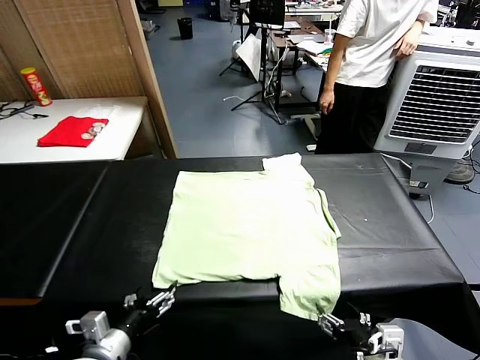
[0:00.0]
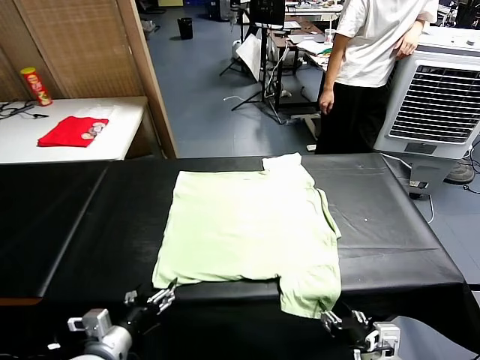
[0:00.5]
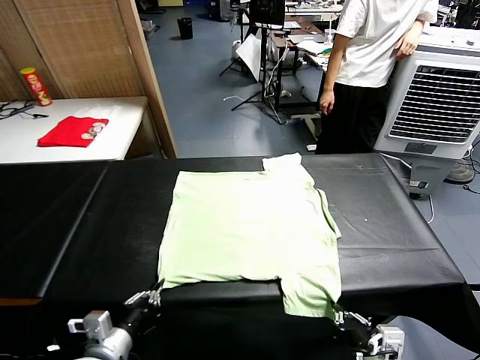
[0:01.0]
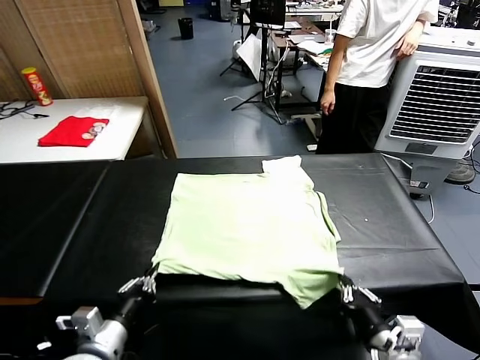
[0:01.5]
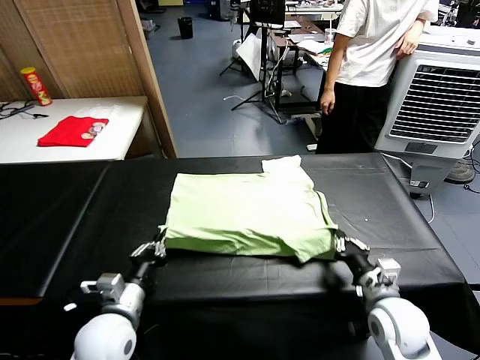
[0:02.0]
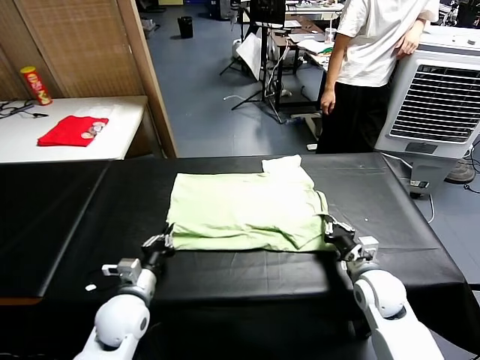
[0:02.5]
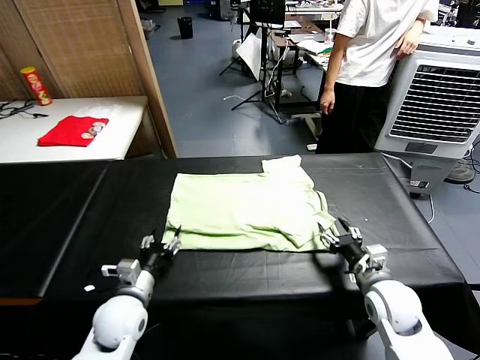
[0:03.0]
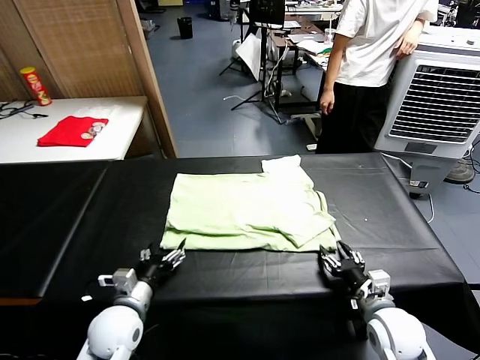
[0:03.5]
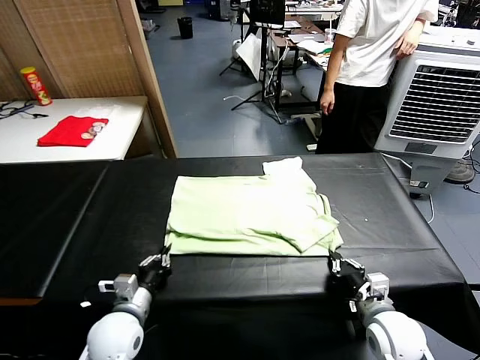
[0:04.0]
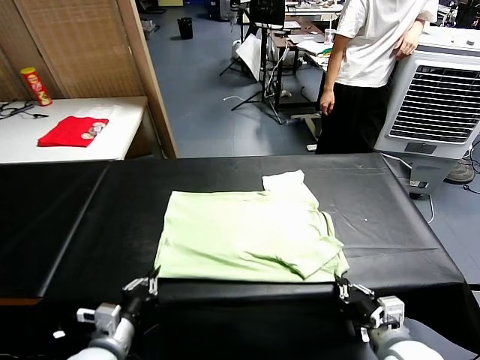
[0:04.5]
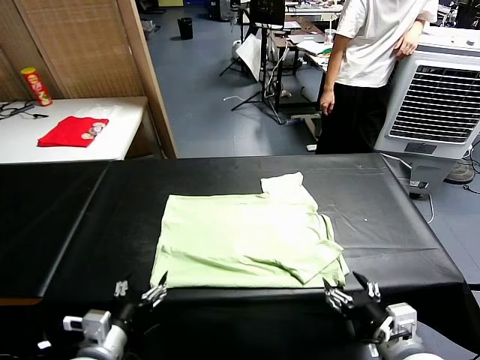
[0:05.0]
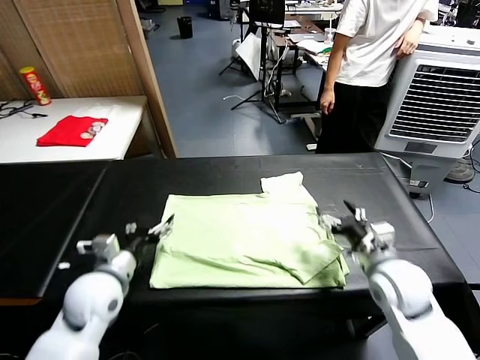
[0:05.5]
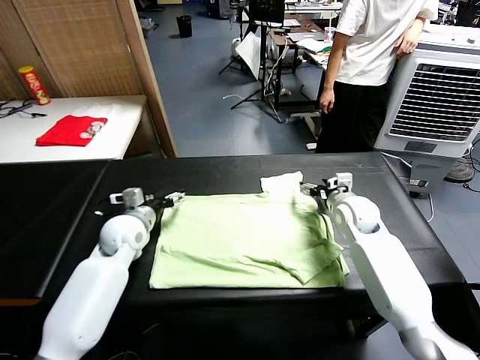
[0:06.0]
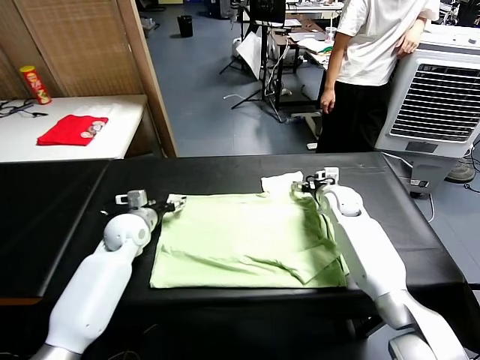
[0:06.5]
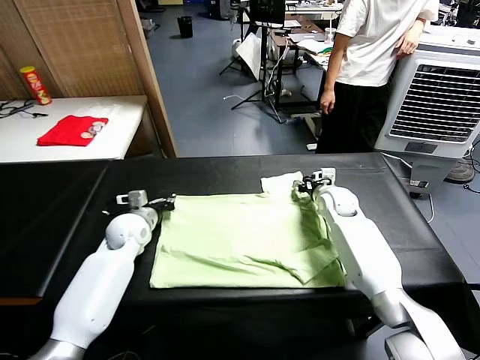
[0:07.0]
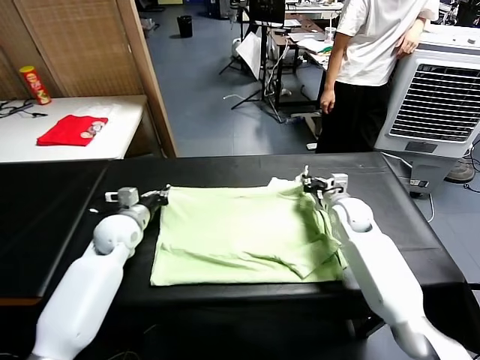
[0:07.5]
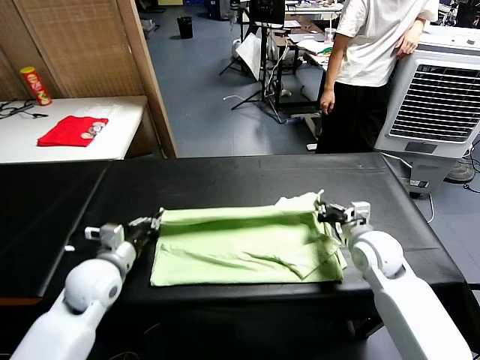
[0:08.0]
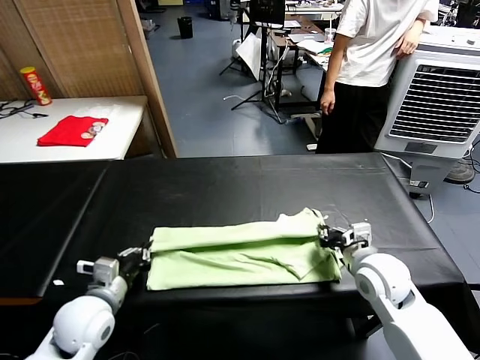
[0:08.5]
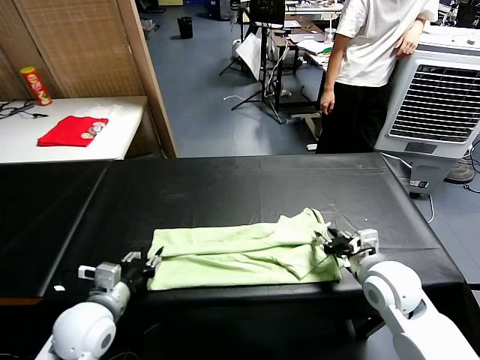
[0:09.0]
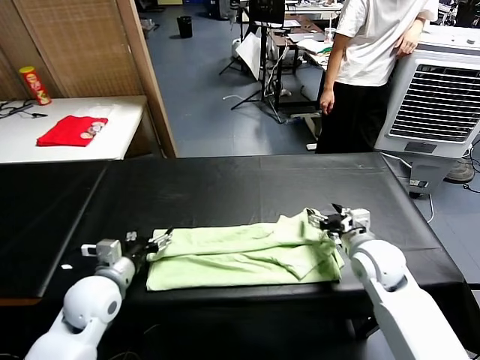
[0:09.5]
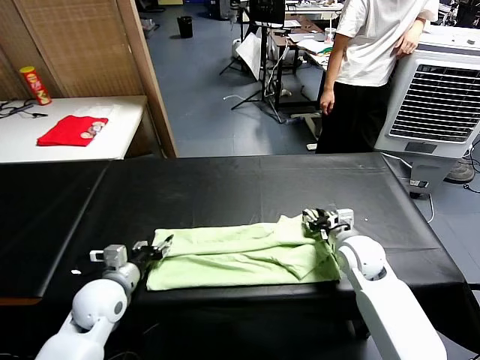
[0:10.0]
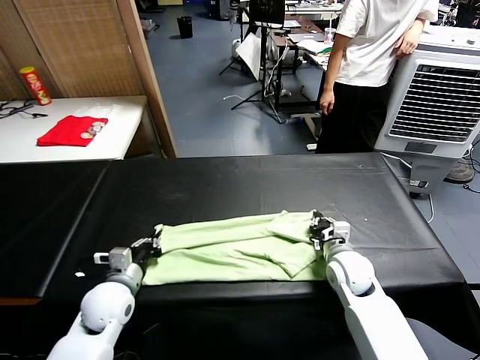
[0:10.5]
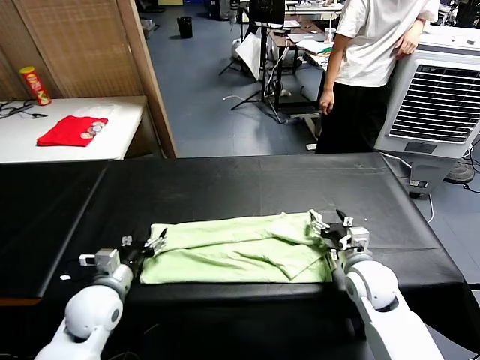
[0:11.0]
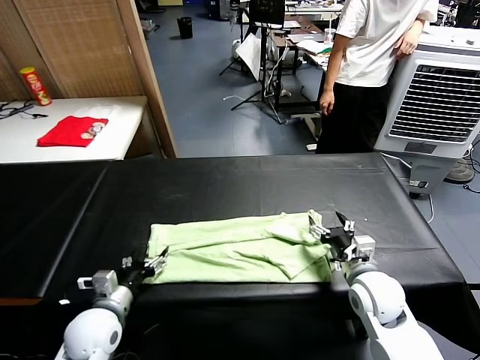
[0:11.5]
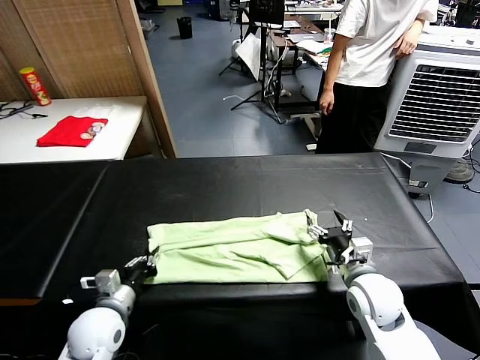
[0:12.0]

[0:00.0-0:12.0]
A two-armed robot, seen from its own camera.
Task of the whole recording: fold and organize the clothes.
Step, 0:00.0 to 0:00.5: use both grippers simultaneously to clamp the lower edge of the clothing fabric.
Step, 0:01.0 to 0:02.5: use both grippers to drag the lower edge of the fabric forward and fold it over the upper edge.
Step, 0:03.0 to 0:04.5: Drag the clothes downward with both gripper.
Step, 0:05.5 to 0:07.0: use both grippers simultaneously to clamp the upper edge of the clothing fabric.
Step, 0:07.5 to 0:09.0: use both grippers to drag the upper edge of the fabric backward and fold it over the lower edge.
Step, 0:09.5 to 0:11.5: use the left gripper to clamp the left edge of the fabric.
0:02.0 to 0:04.0: The right gripper moves backward, about 10 cm, and opens, then closes once more. The left gripper opens, then closes once more.
0:04.0 to 0:06.0: The grippers both shift forward by roughly 25 cm. The left gripper opens up; the right gripper opens its fingers.
0:06.0 to 0:08.0: Both grippers travel together backward, approximately 15 cm. The right gripper closes; the left gripper closes up.
0:08.0 to 0:10.0: The left gripper opens up. The right gripper changes place by roughly 5 cm, and opens and closes again.
0:10.0 to 0:12.0: The left gripper moves roughly 5 cm, and closes. Meanwhile the right gripper goes roughly 10 cm backward, and opens up.

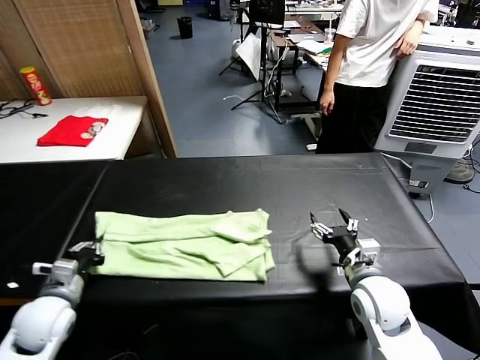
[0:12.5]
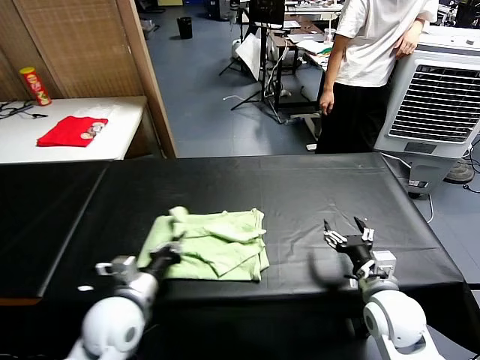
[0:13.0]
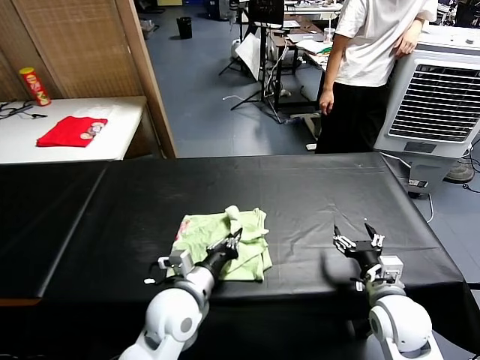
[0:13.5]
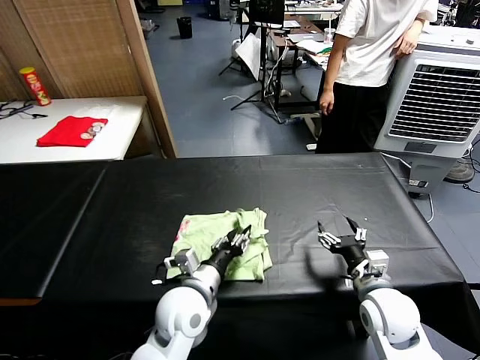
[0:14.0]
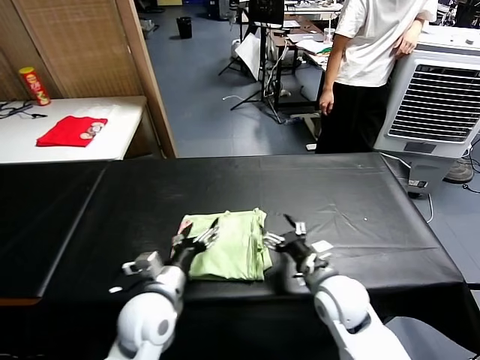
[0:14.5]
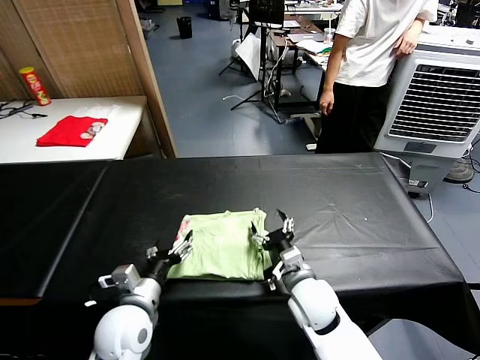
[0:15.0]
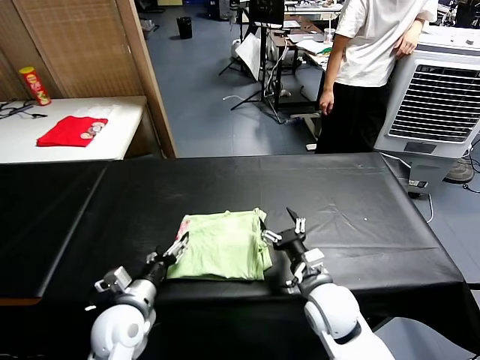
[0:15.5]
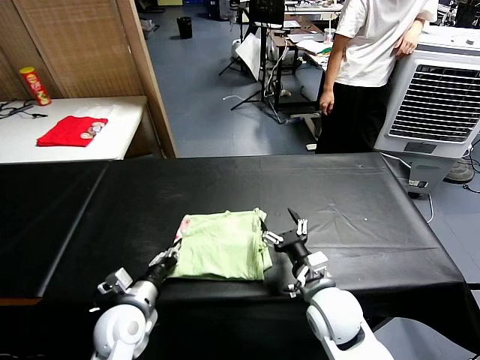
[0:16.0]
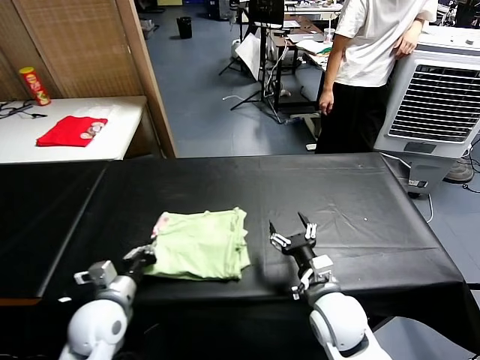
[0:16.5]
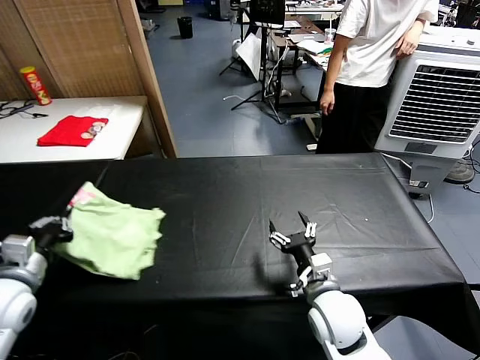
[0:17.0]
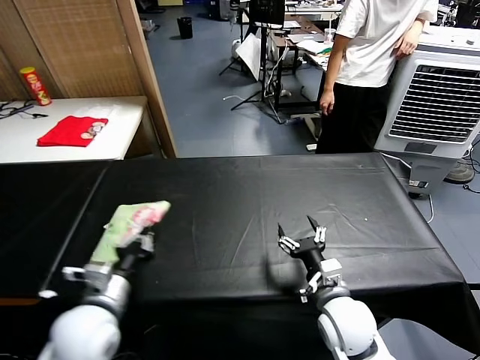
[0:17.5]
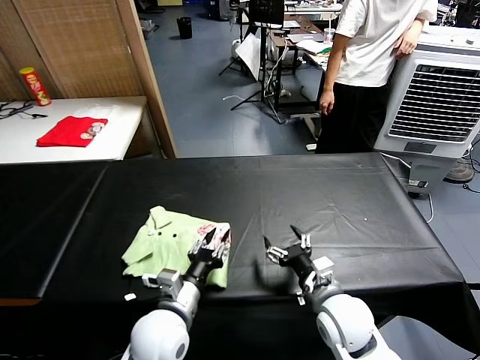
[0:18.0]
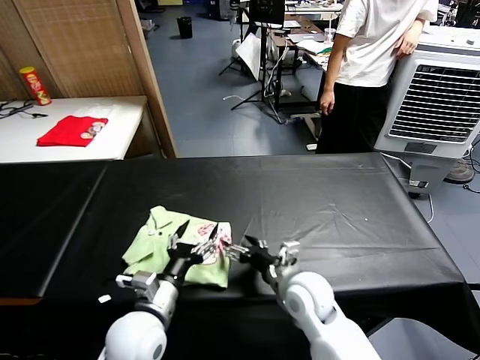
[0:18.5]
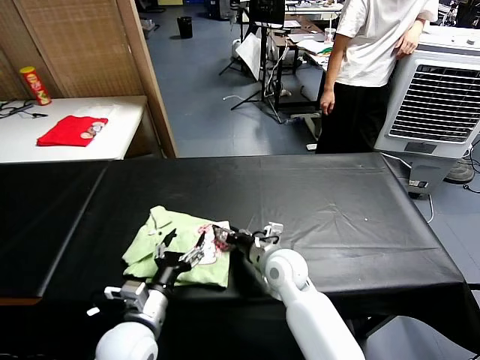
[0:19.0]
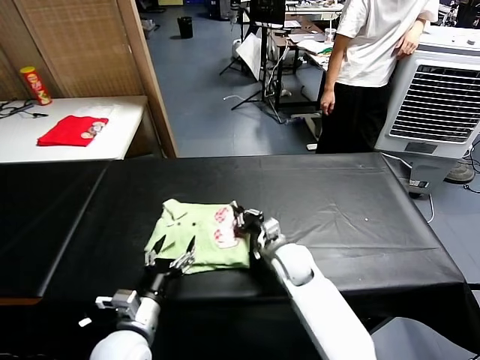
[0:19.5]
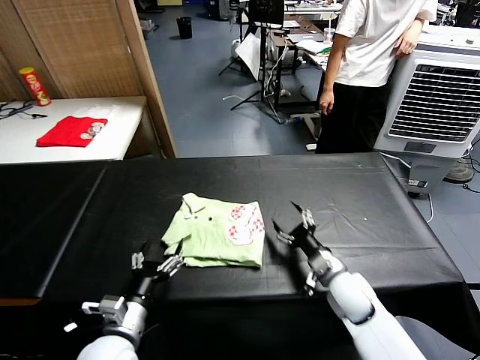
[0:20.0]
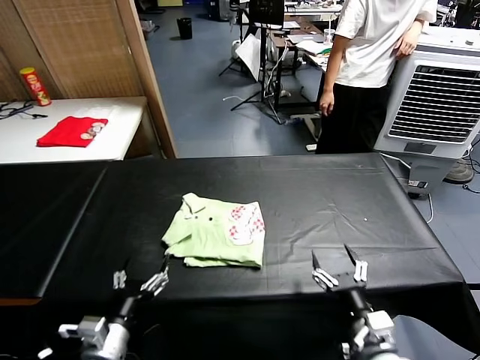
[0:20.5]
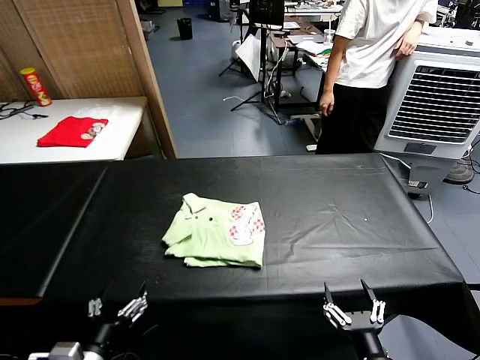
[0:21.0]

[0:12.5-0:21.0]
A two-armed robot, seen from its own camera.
Task of the whole recording: fold and organize the clothes.
Step, 0:12.5 to 0:14.0: use the left gripper to drag the left edge of the fabric to the left and folds it over the right edge.
Step, 0:14.5 to 0:18.0: Flip the folded clothes over with left gripper.
Step, 0:18.5 to 0:19.5: Drag the clothes to the center of the table.
0:12.5 to 0:14.5: The left gripper travels to the right by some 20 cm, and opens. The right gripper heads to the left, covering approximately 10 cm.
0:14.5 to 0:16.5: The left gripper shifts some 10 cm to the left, and closes up.
0:16.5 to 0:19.0: The left gripper goes left and right, about 25 cm each way, reversing 2 times, and opens, while the right gripper shifts approximately 15 cm forward and to the left.
0:19.0 to 0:21.0: The left gripper heads backward and to the left, covering roughly 15 cm. Meanwhile the right gripper is displaced backward and to the right by roughly 30 cm, and closes, then opens again.

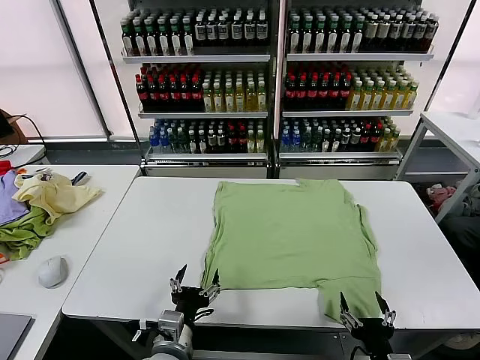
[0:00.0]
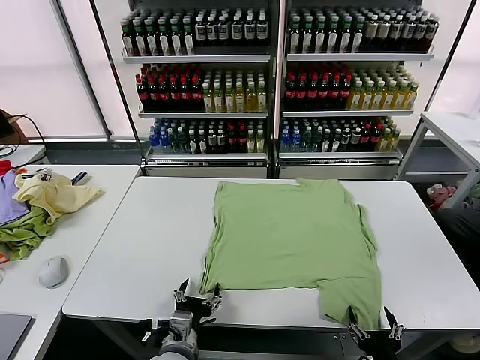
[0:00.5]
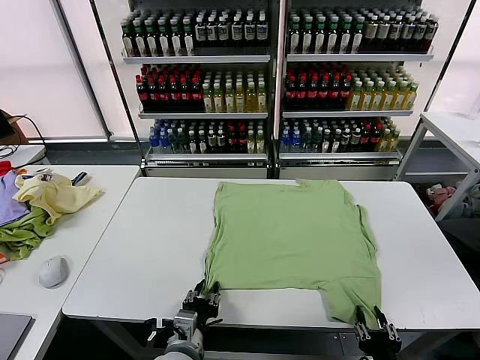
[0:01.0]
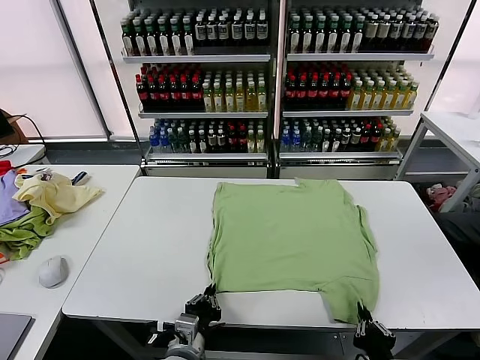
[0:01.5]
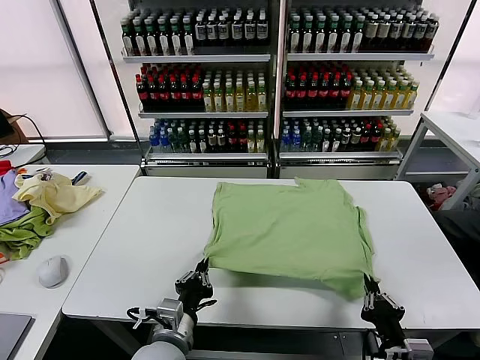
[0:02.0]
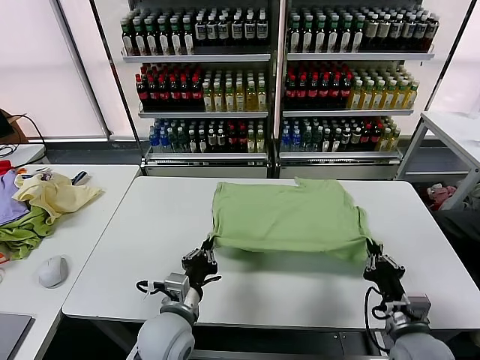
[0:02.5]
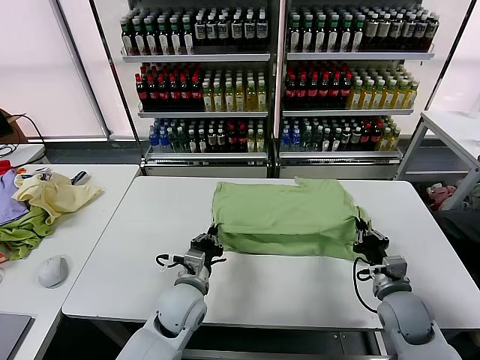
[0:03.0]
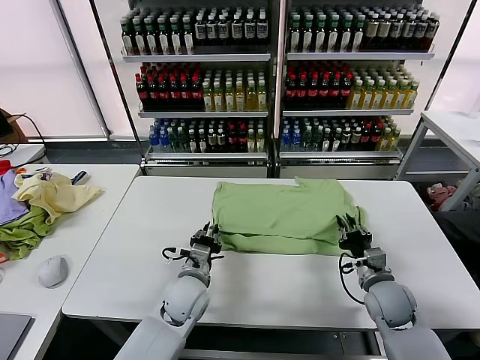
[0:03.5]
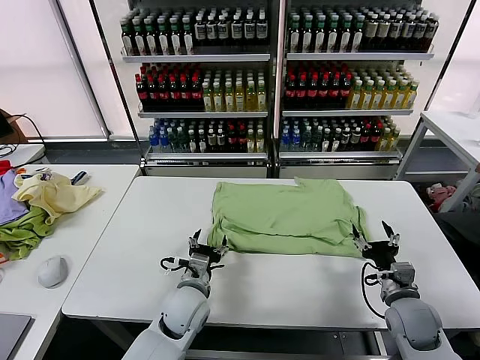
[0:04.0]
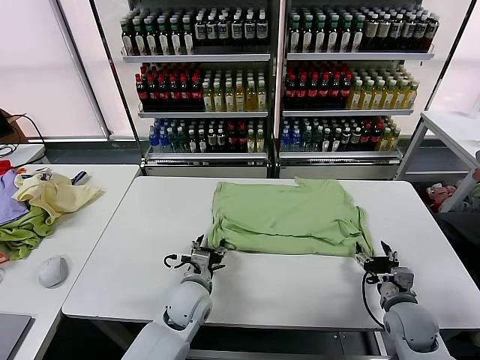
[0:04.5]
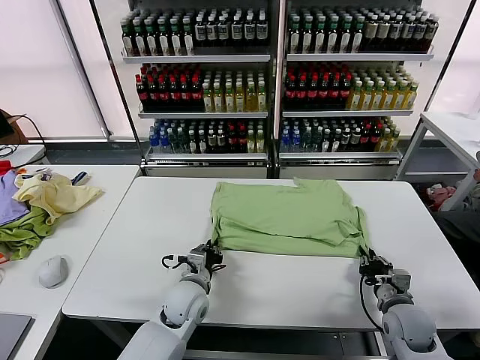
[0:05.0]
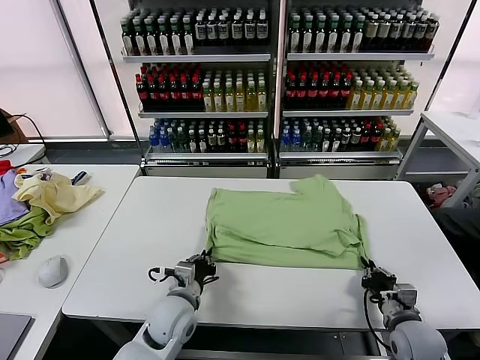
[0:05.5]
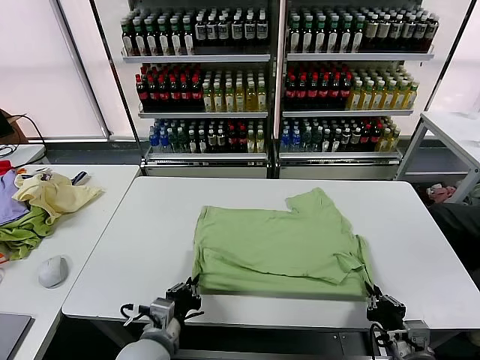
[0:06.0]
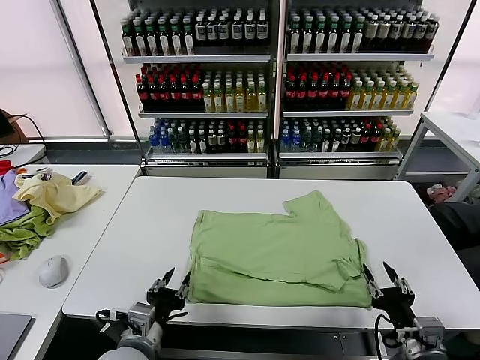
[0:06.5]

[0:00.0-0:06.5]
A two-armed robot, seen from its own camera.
Task of the whole recording: fold and organize the clothes.
Step, 0:00.0 to 0:01.0: use both grippers simultaneously to clamp the lower edge of the clothing fabric.
Step, 0:01.5 to 0:03.5: use both grippers to drag the lower edge of the fabric forward and fold it over the upper edge.
Step, 0:04.0 to 0:06.0: Drag the clothes downward with both gripper.
0:02.0 to 0:04.5: Both grippers move forward, approximately 15 cm. The right gripper opens its fingers. Meanwhile the left gripper opens its fingers.
0:04.5 to 0:06.5: The right gripper heads backward and upward, covering about 15 cm, and closes, then opens again. The left gripper moves backward and to the left, approximately 15 cm, and closes, then reopens.
